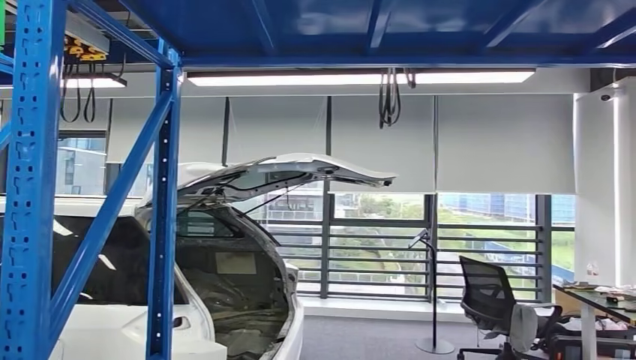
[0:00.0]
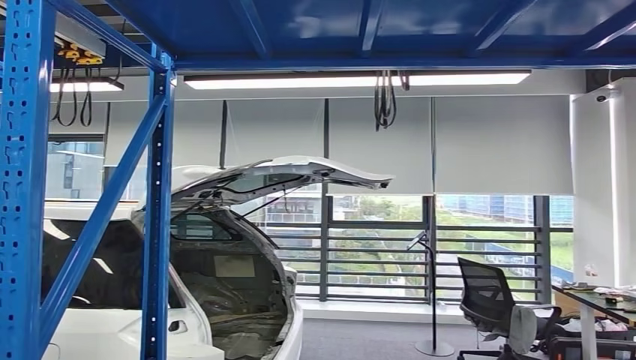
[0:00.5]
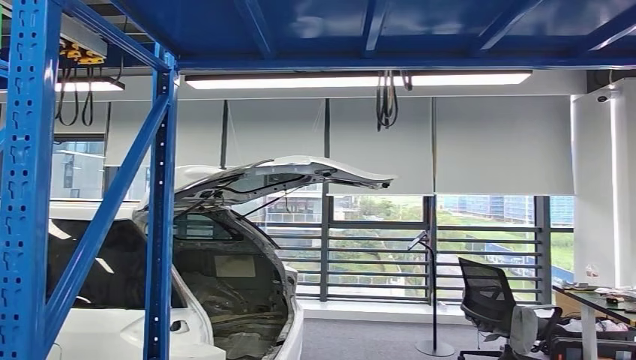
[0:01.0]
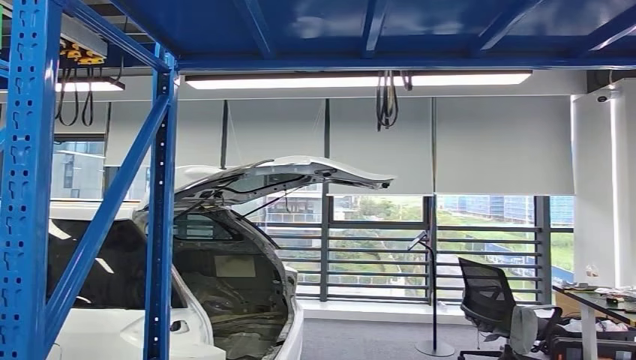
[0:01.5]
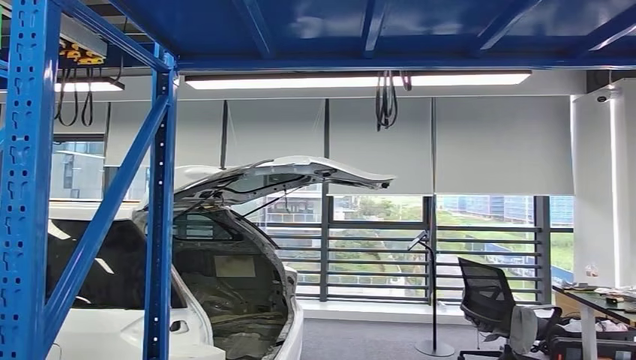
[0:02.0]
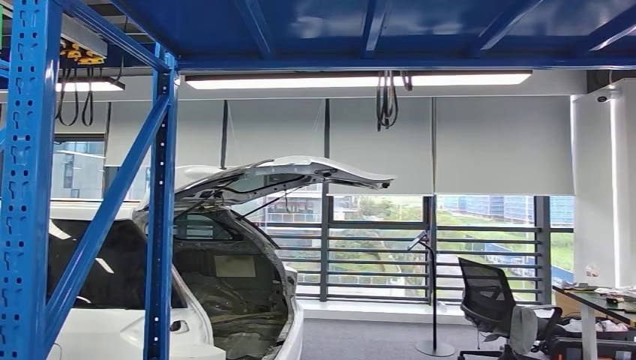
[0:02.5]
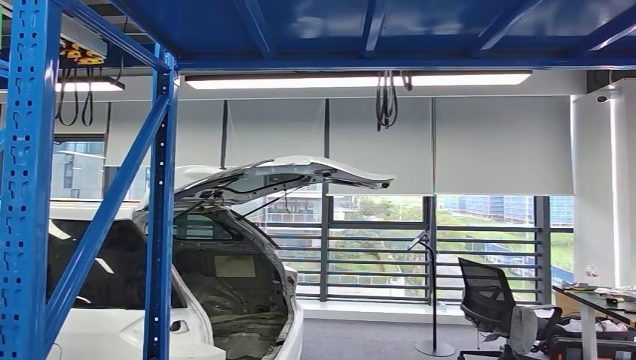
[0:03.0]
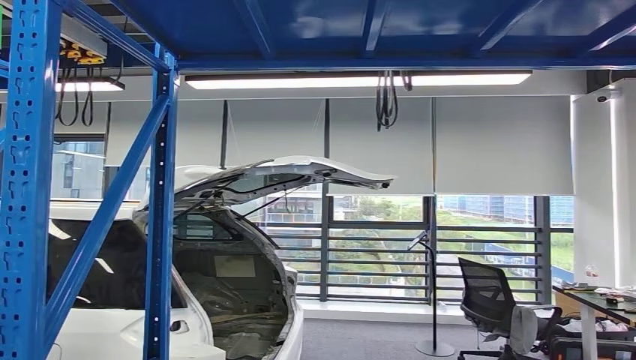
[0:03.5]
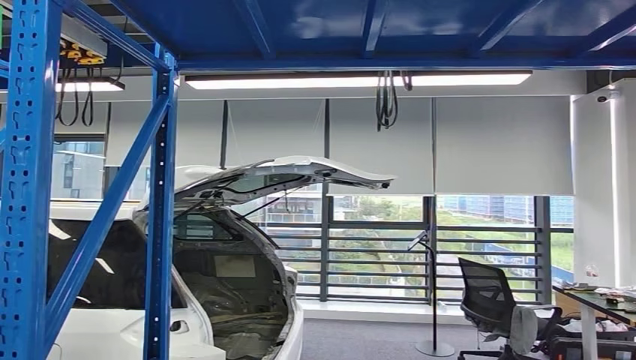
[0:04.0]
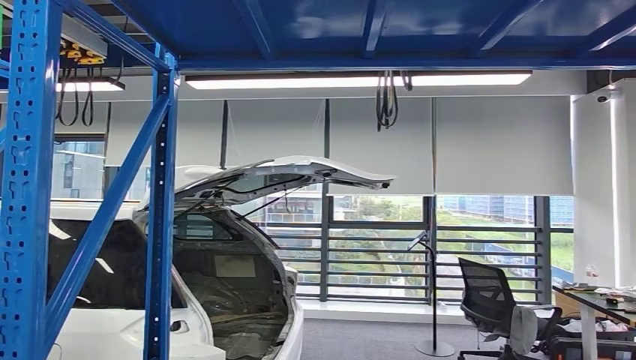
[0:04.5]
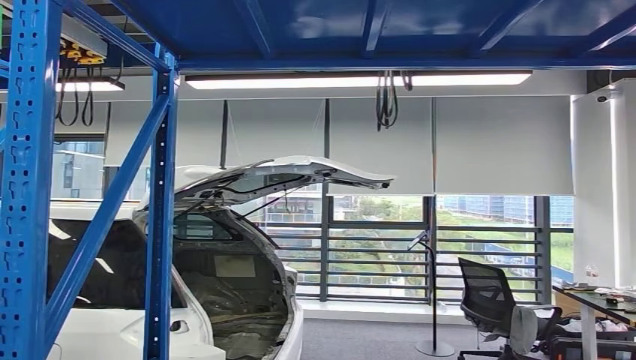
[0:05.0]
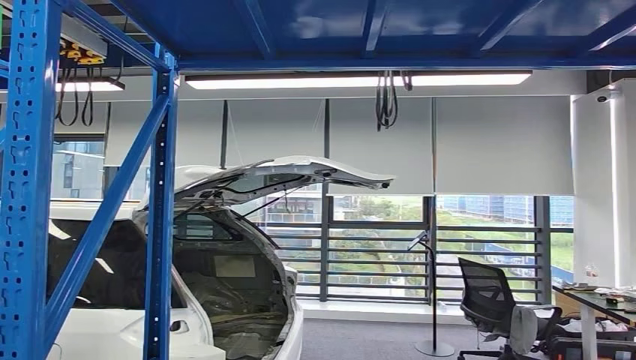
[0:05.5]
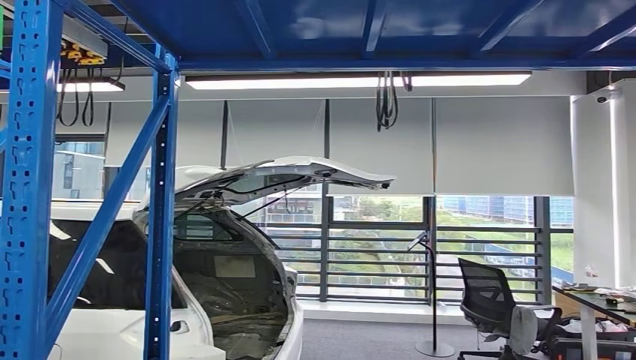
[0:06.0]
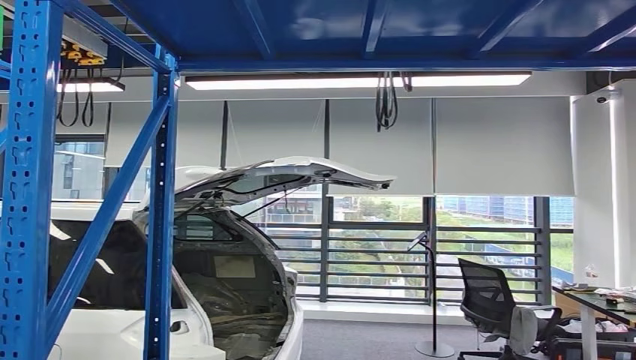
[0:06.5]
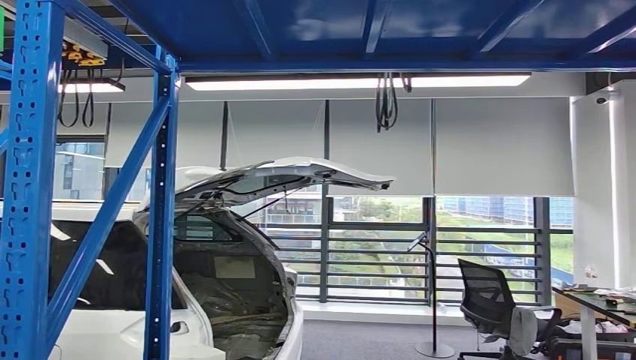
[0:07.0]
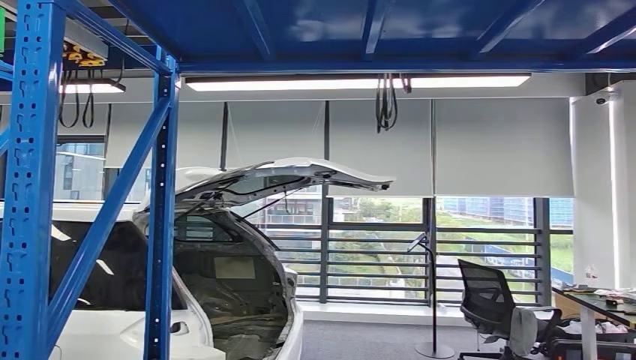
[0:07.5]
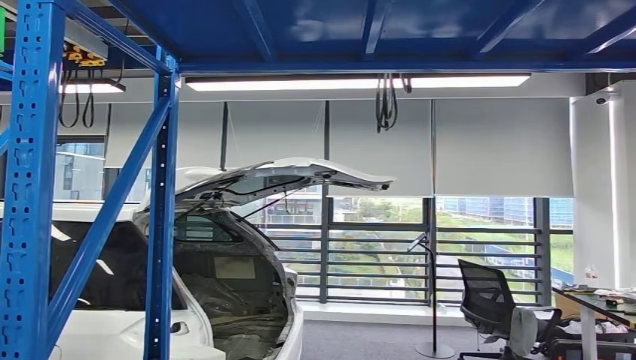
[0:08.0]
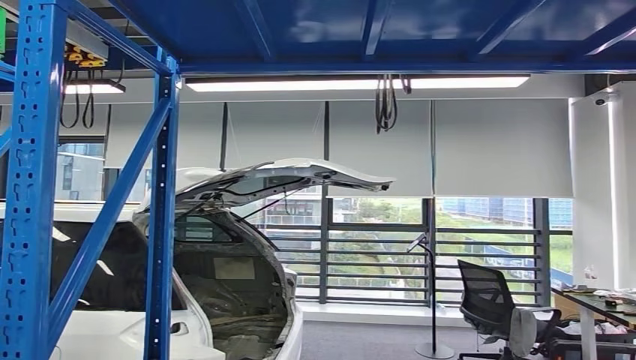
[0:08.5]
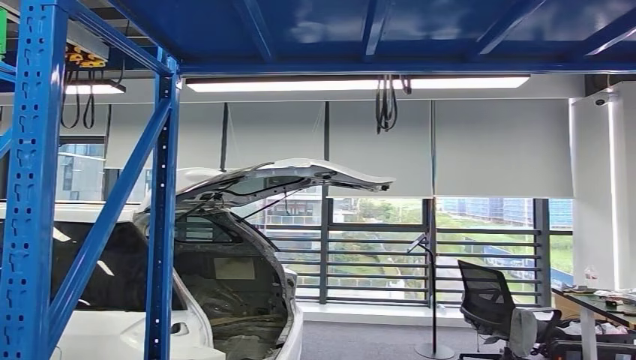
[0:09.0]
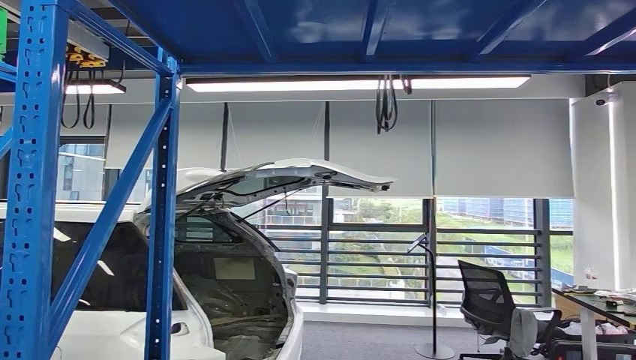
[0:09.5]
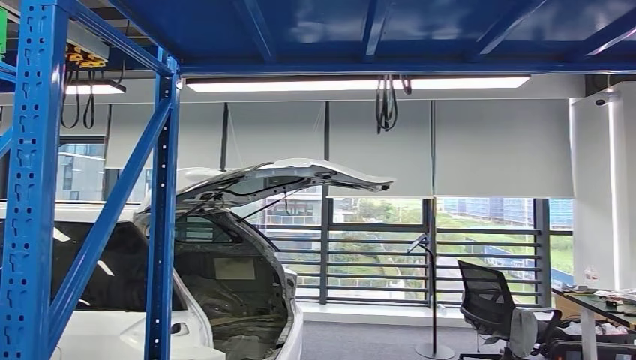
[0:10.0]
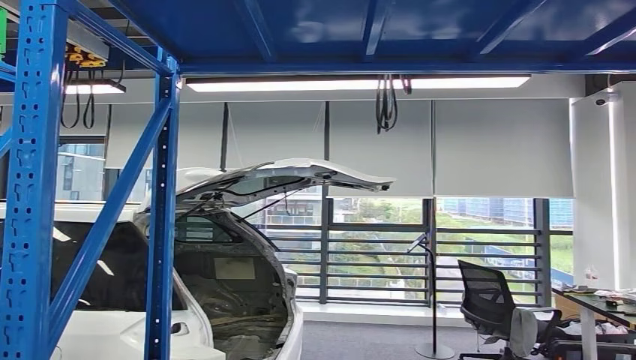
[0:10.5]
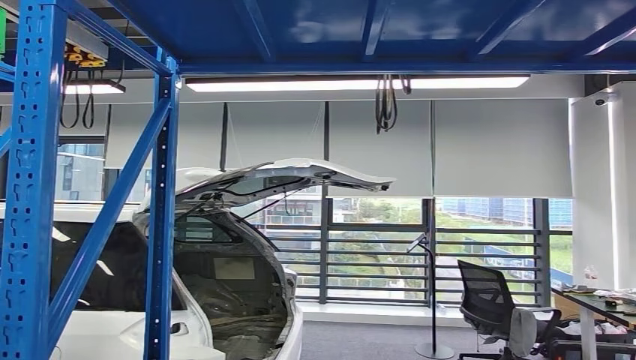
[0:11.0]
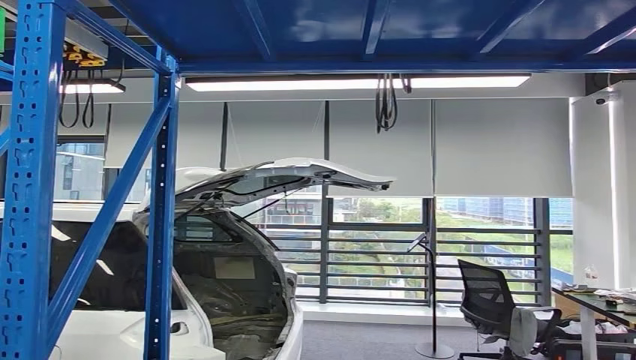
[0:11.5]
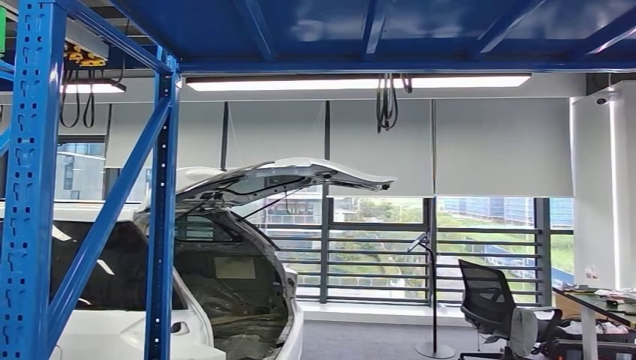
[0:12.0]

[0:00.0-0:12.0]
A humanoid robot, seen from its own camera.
0:06.0 to 0:08.0: Both hands stay put.
0:08.0 to 0:10.0: Neither hand changes place.
0:10.0 to 0:12.0: The right hand travels to the left by about 5 cm.

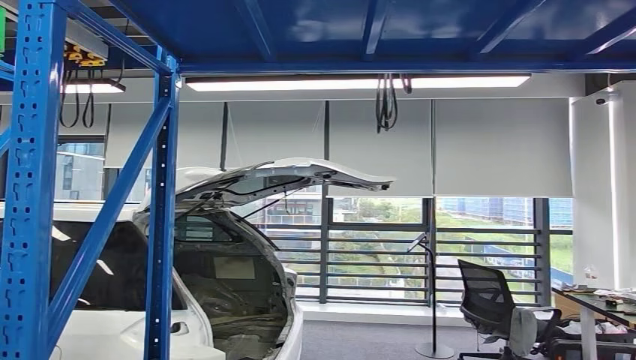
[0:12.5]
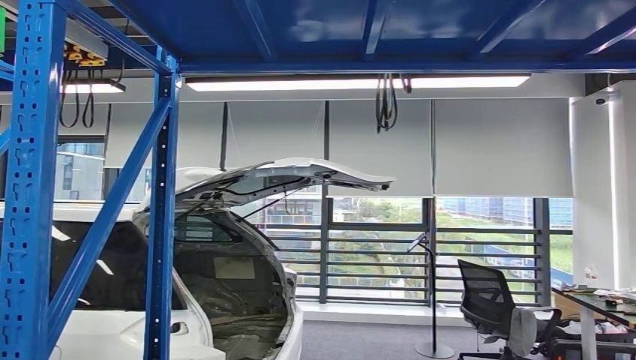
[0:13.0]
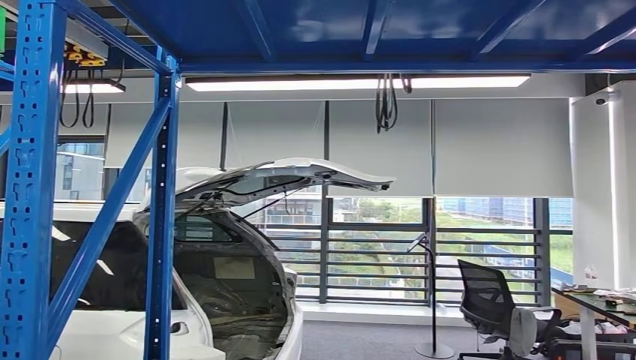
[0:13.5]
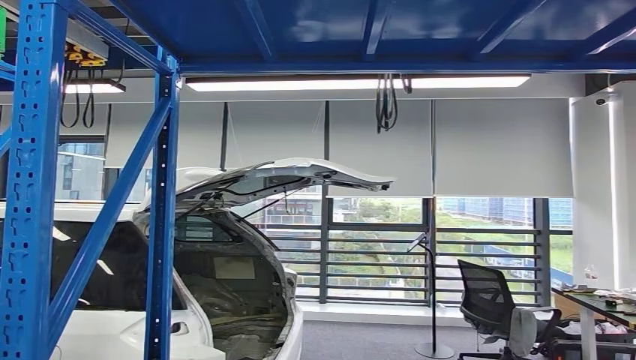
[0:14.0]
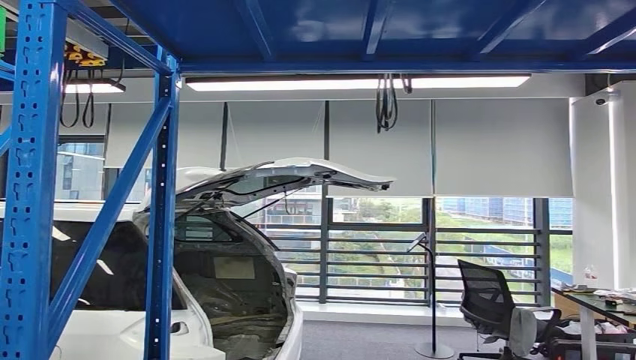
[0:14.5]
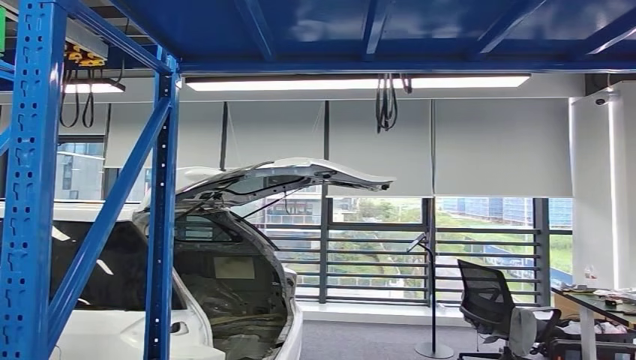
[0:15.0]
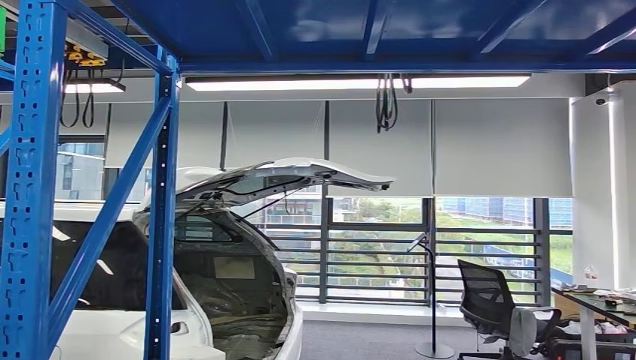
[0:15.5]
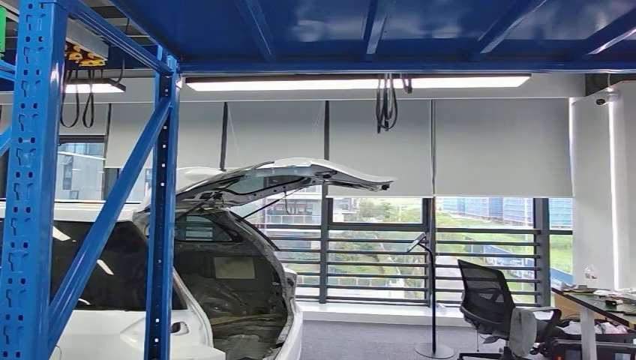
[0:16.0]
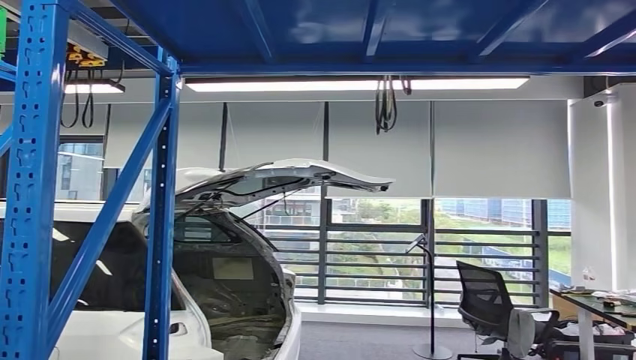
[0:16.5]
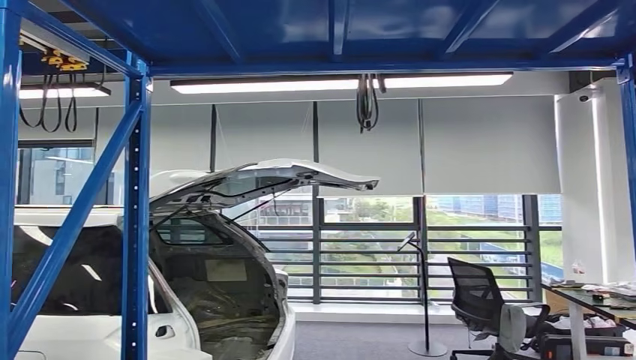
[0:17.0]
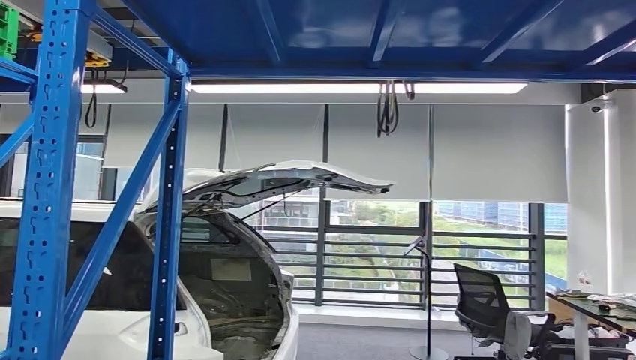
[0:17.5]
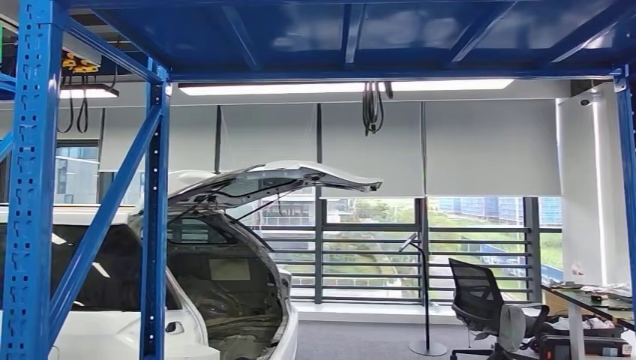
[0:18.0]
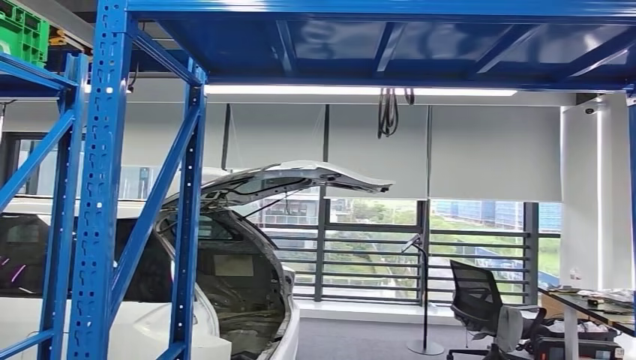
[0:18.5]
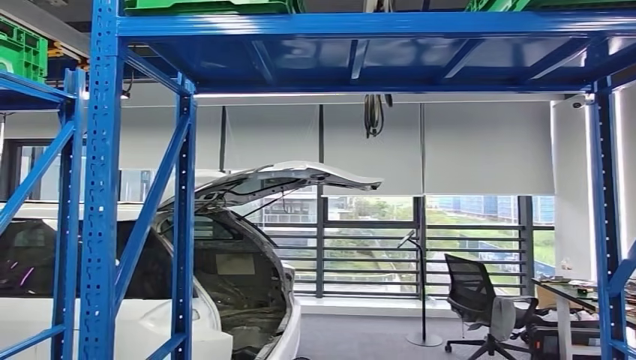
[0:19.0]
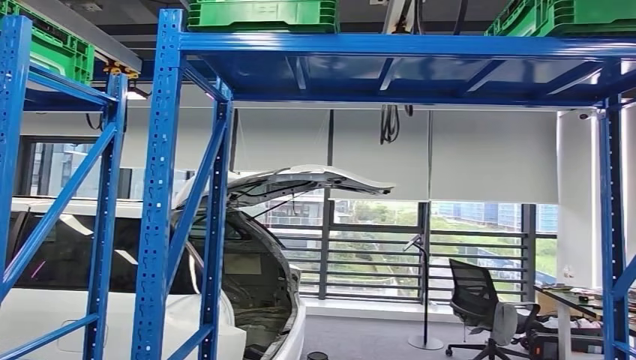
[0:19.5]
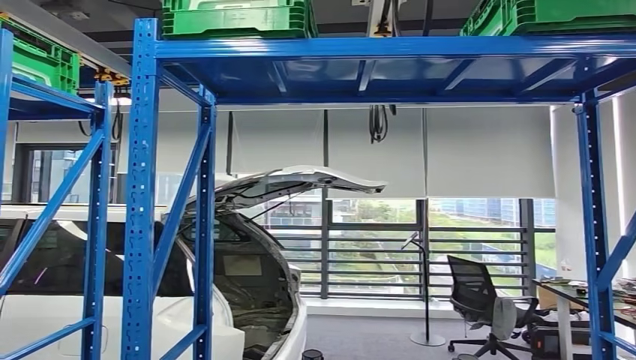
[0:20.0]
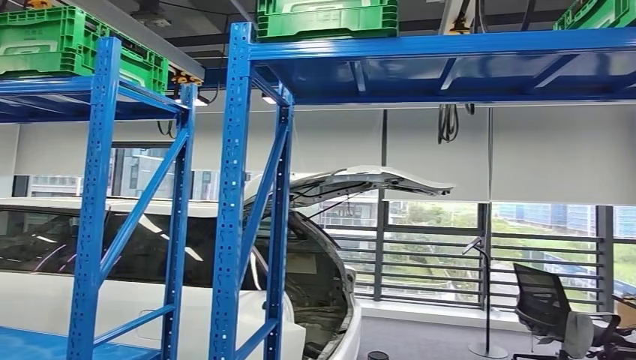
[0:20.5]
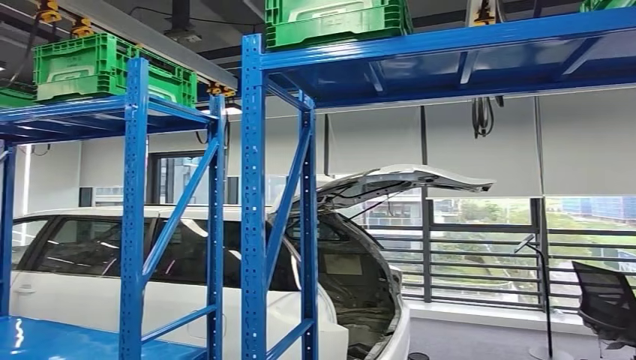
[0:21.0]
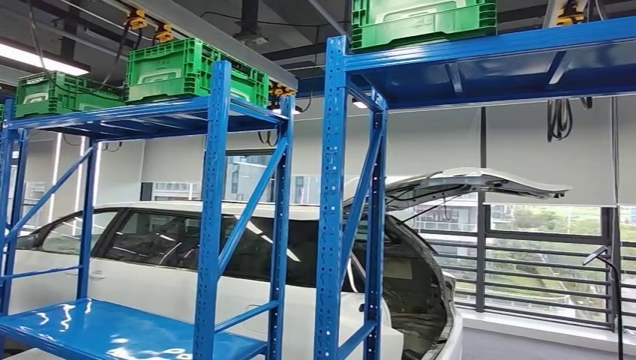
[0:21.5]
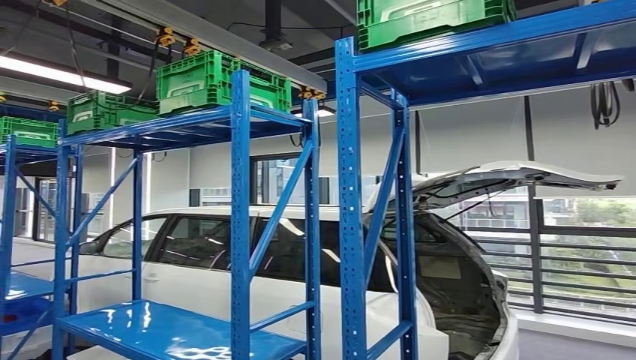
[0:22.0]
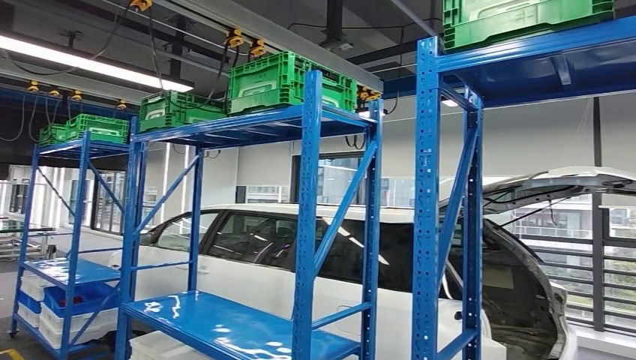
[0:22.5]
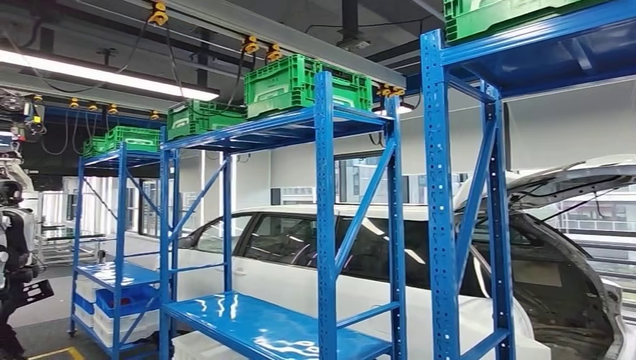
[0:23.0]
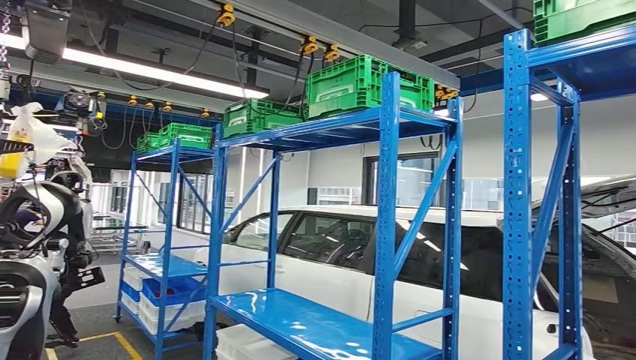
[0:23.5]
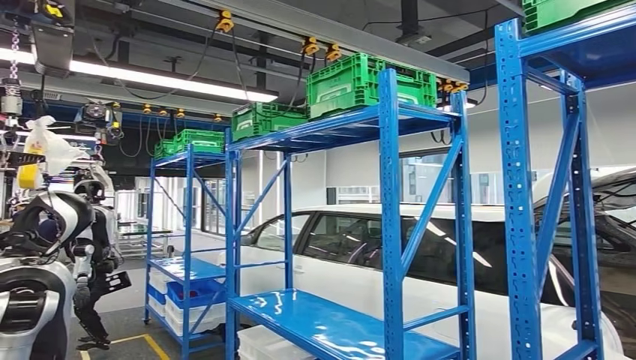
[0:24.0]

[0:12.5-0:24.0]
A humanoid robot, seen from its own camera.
0:14.5 to 0:16.5: There are only small adjustments of the hands.